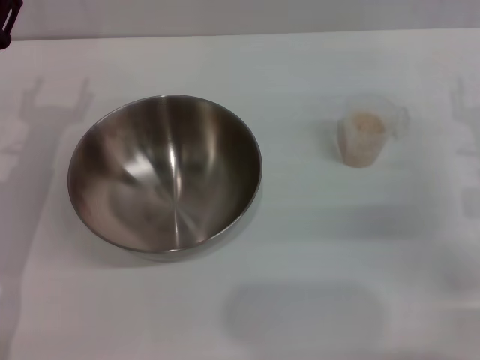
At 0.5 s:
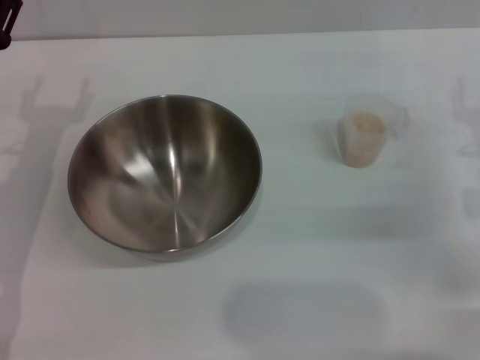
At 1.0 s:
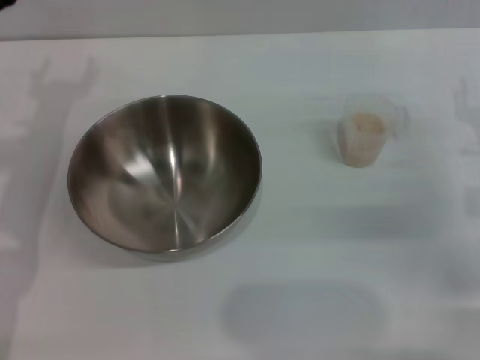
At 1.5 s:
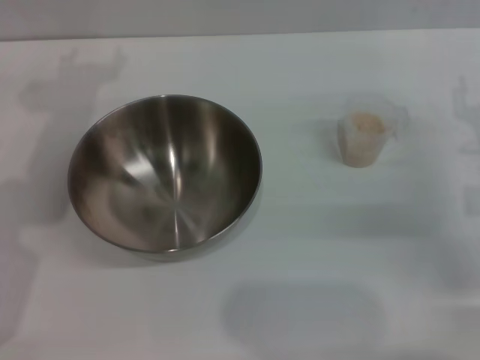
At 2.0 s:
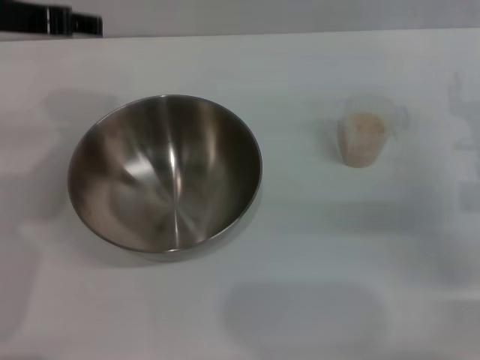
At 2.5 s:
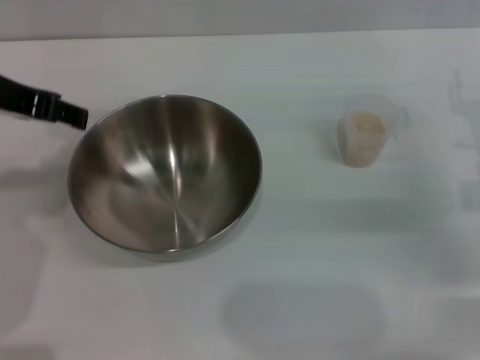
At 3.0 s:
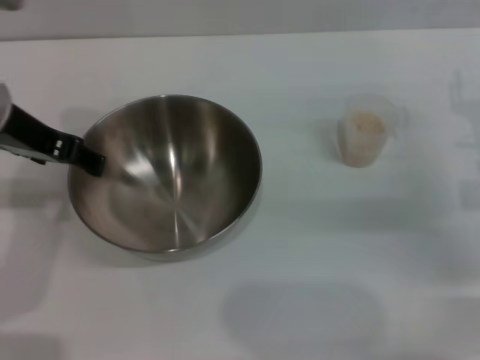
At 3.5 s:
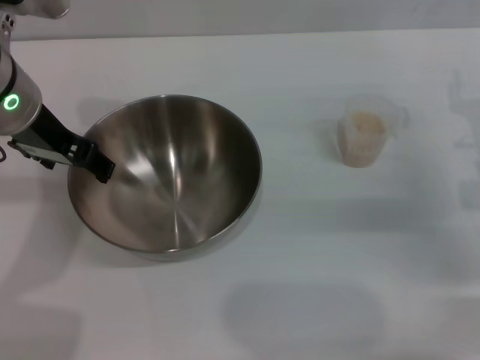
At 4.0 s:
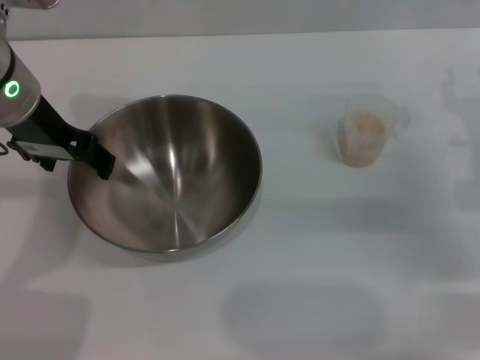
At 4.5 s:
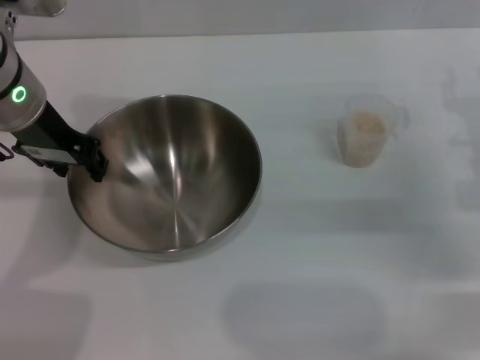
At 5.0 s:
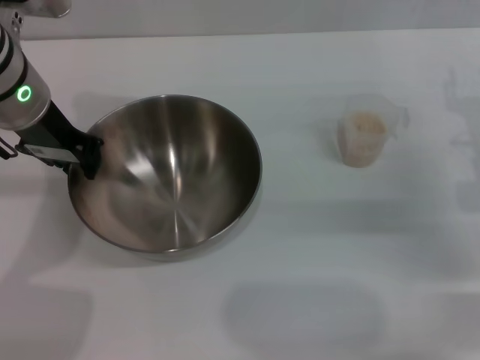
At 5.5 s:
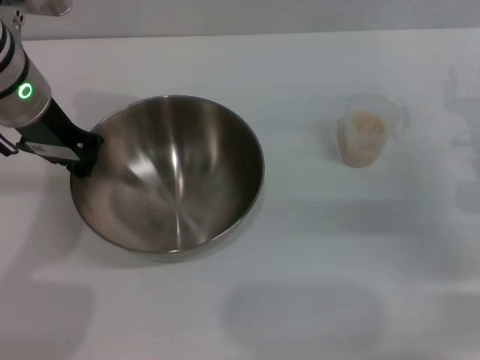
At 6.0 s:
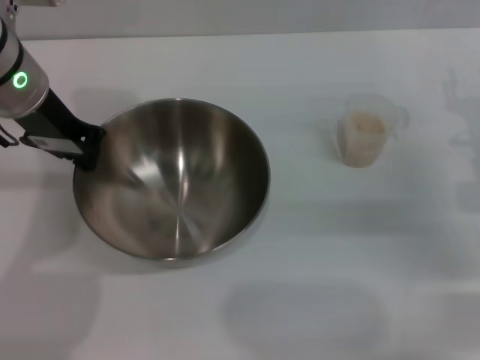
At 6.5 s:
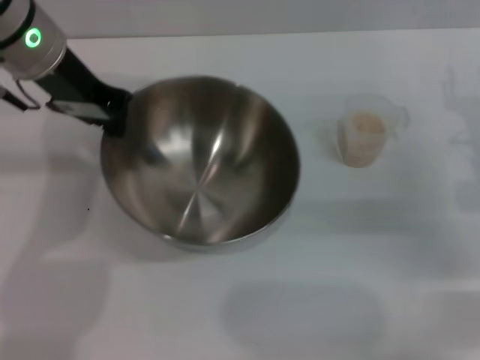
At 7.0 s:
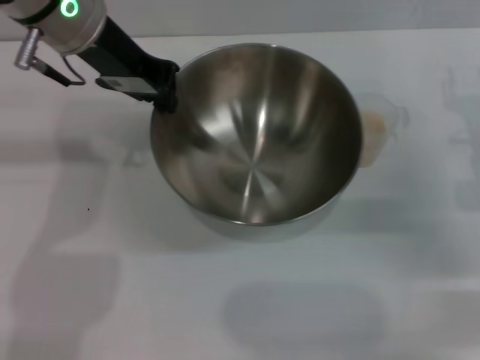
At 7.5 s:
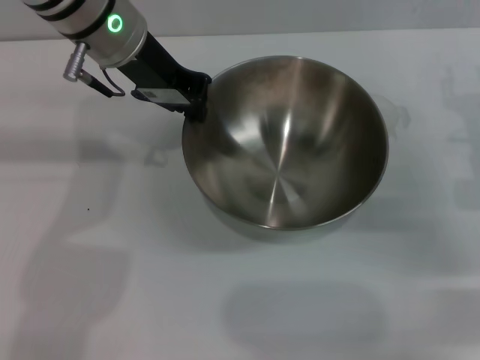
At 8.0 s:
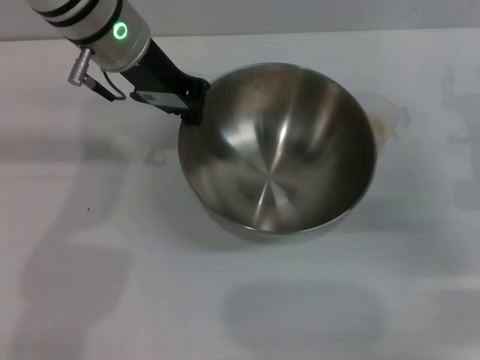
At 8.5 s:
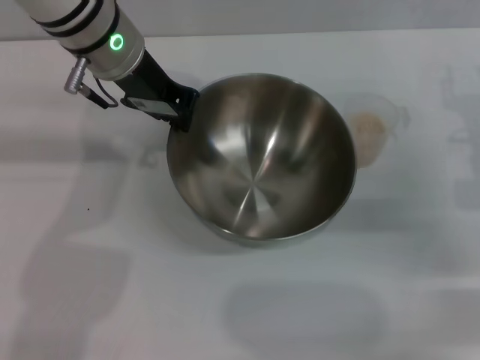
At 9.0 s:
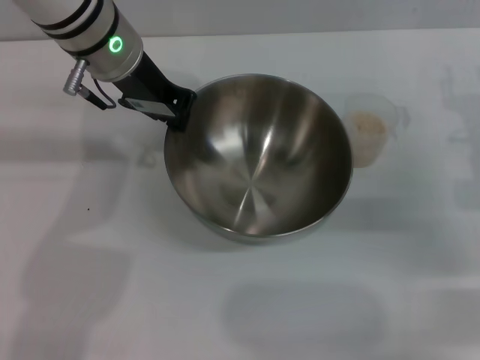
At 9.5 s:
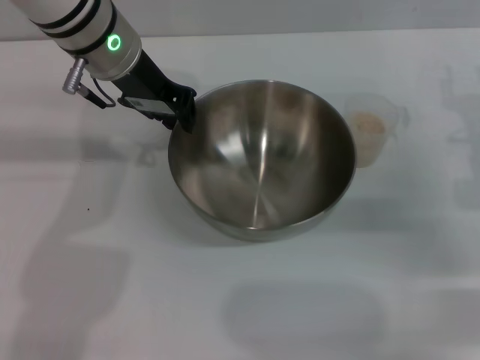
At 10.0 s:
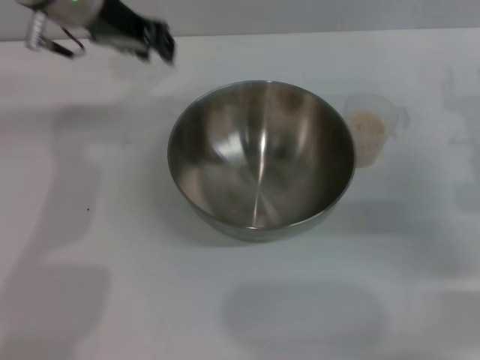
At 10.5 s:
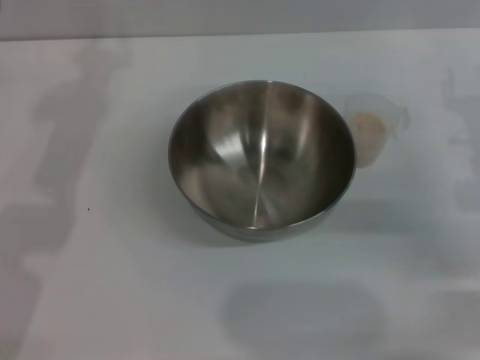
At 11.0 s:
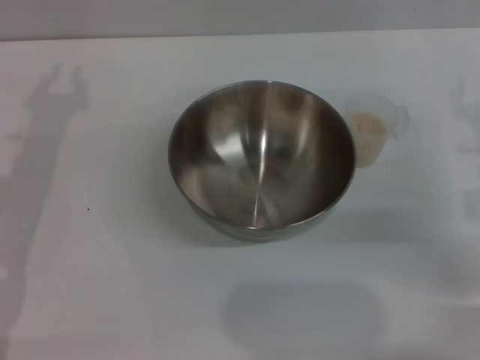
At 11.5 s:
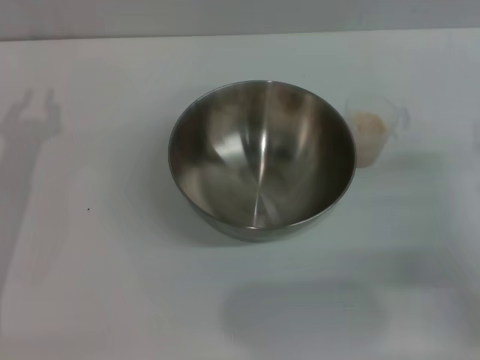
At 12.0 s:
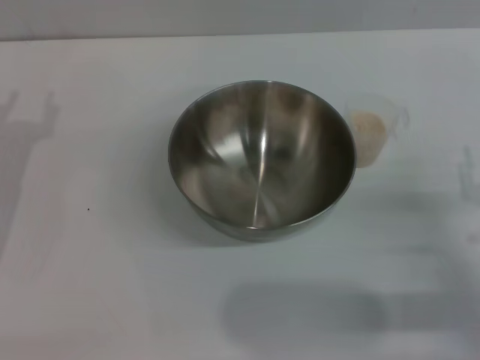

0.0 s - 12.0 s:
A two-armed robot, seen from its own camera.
Task of the whole recording: Place the bowl in the middle of the table with one hand and pour the rice from the grain cup into it with the other hand.
Step, 0.0 s - 6.0 s: Pick up the bowl with the left gripper.
Step, 6.5 s - 9.5 s: Place the bowl in the center of view with the left gripper.
0.0 s - 2.0 s: The left gripper travels upward by approximately 20 cm.
2.0 s - 4.0 s: The left gripper travels downward by about 5 cm.
4.0 s - 6.0 s: The left gripper closes its fingers.
6.0 s - 8.0 s: The left gripper is displaced to the right by some 5 cm.
8.0 s - 10.0 s: There are only small adjustments of the grippers.
10.0 s - 12.0 s: The left gripper heads downward, to the left and backward, covering approximately 25 cm; the right gripper travels backward and downward by roughly 15 cm.

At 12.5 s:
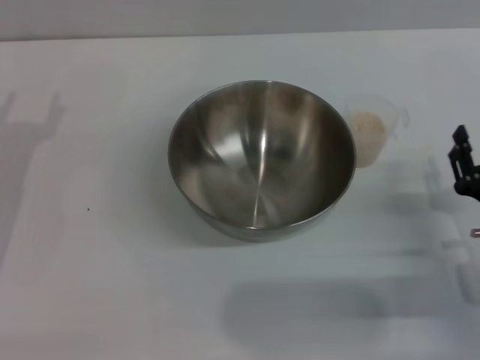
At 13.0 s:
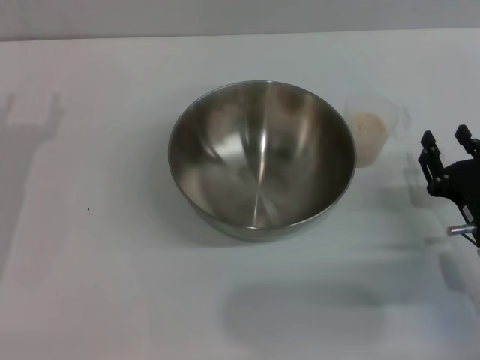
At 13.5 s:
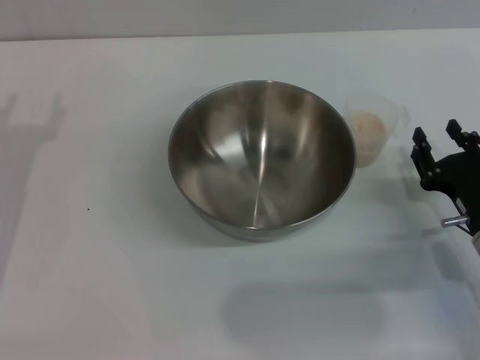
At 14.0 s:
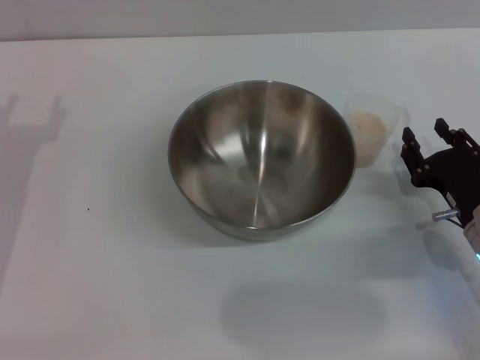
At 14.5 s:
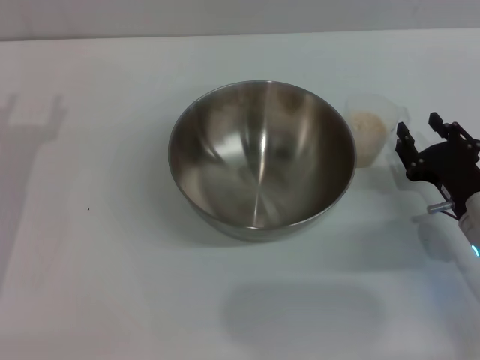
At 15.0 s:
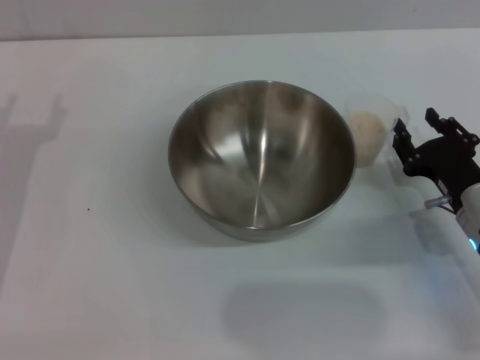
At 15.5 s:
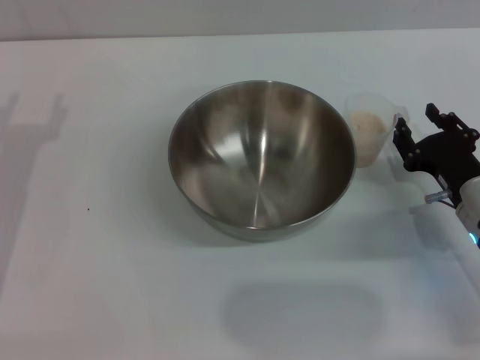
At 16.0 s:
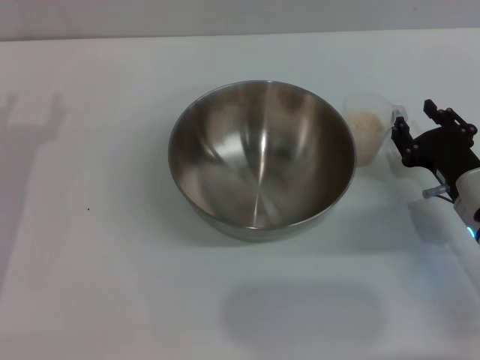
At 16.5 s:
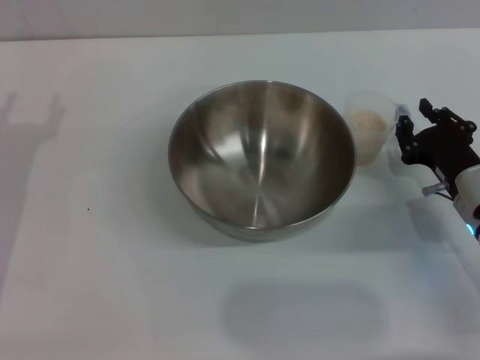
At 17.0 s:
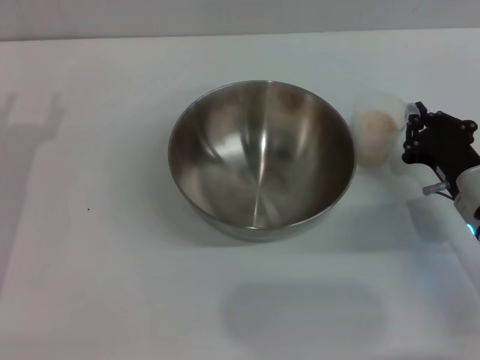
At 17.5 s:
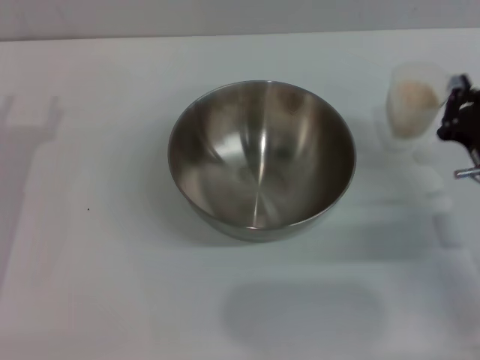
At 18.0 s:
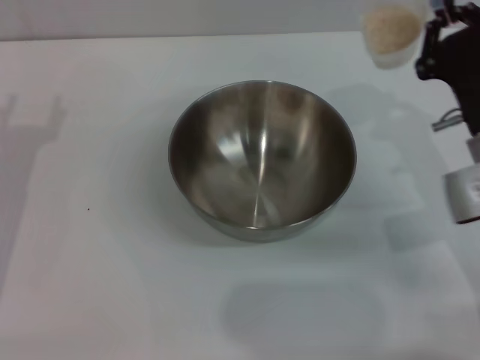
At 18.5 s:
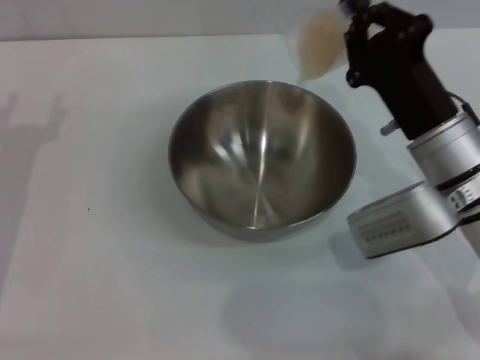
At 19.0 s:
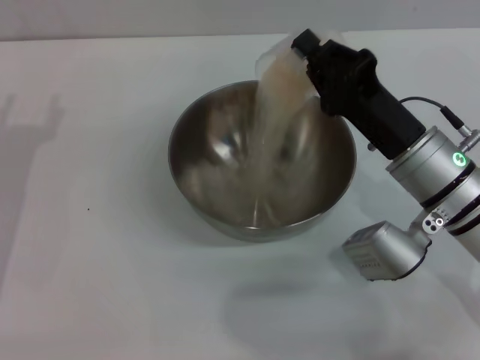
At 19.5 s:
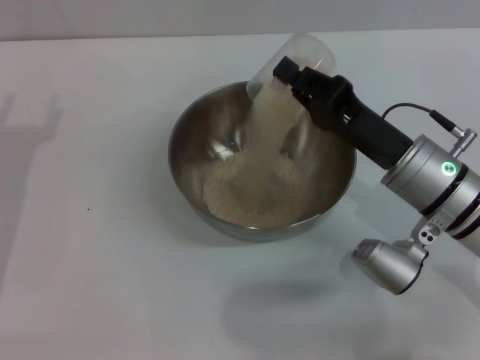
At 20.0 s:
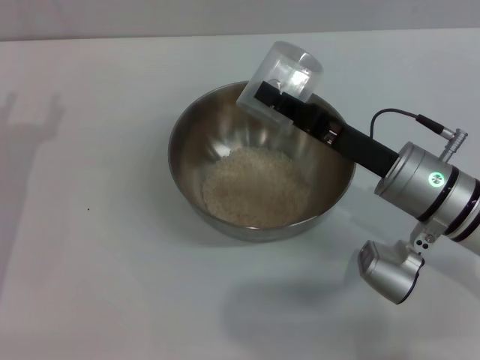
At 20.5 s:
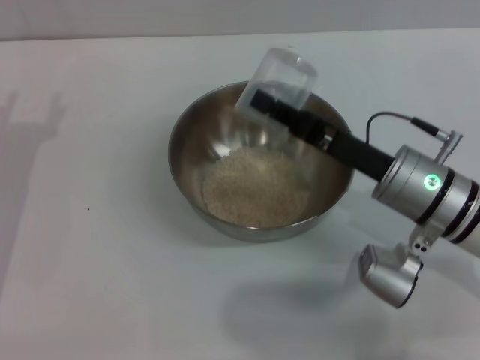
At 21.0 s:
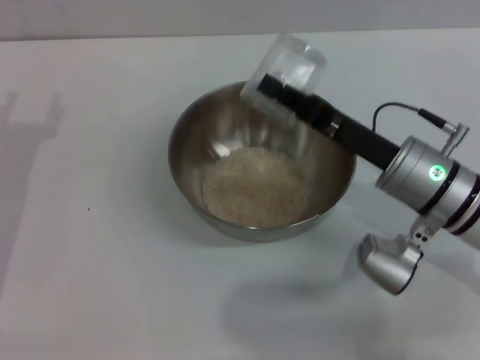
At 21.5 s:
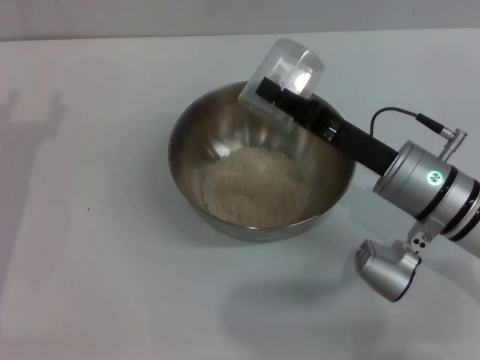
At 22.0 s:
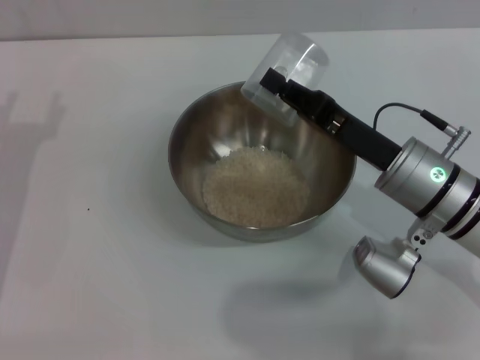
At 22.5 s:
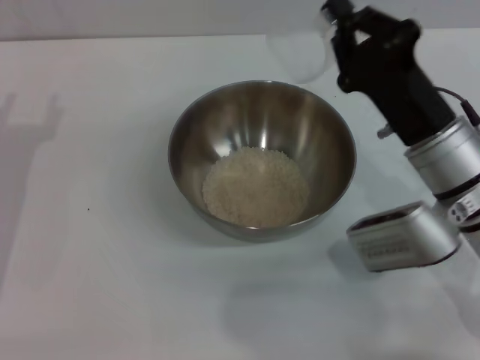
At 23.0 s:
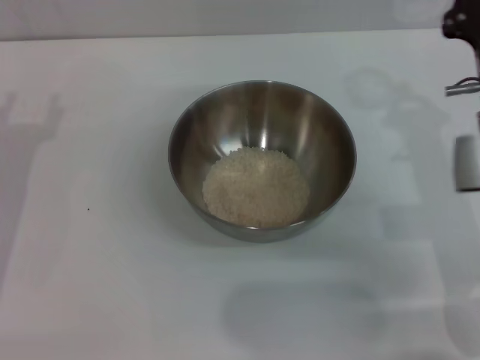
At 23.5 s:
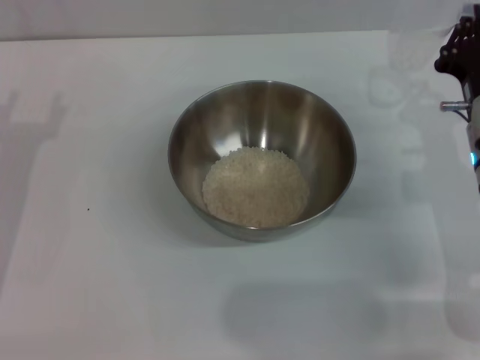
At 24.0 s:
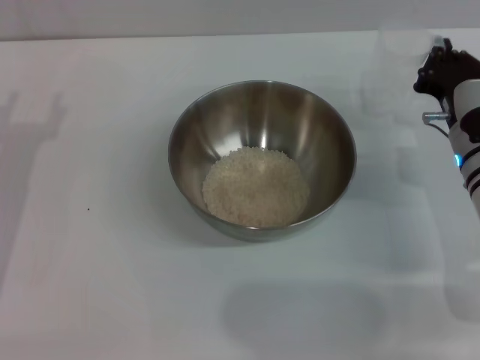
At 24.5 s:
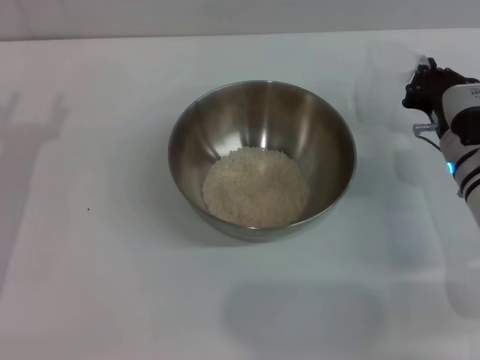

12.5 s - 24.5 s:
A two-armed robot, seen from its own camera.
Task of the whole recording: Place the bowl in the middle of the table with one hand and pour the rice from the grain cup into it with the other hand.
Step, 12.5 s - 17.5 s: Pick up the cup with rice in it with the right gripper.
Step, 18.0 s - 20.5 s: Pour the rice from the cup into the bowl with the right gripper.
12.5 s - 14.5 s: The right gripper heads forward, covering roughly 5 cm.
14.5 s - 16.5 s: There are only small adjustments of the grippers.
16.5 s - 18.5 s: The right gripper is displaced upward and to the left by approximately 10 cm, and closes its fingers.
22.5 s - 24.5 s: The right gripper moves downward, to the right and forward, some 10 cm.

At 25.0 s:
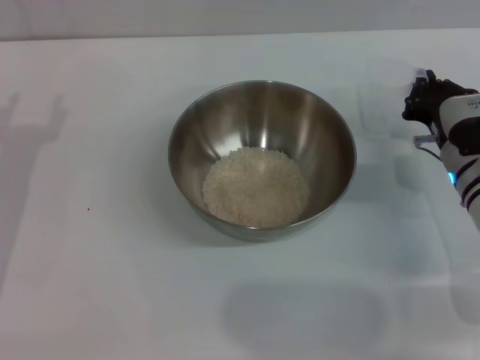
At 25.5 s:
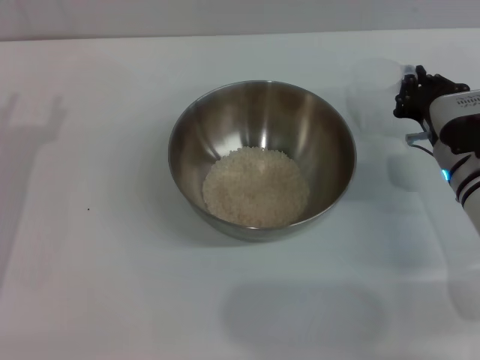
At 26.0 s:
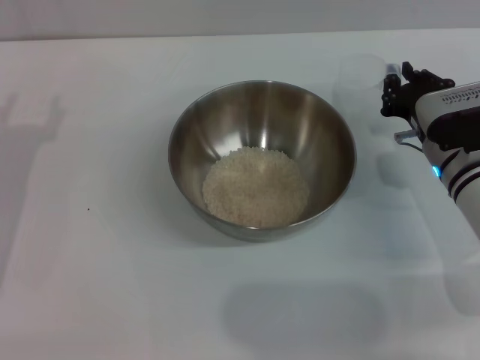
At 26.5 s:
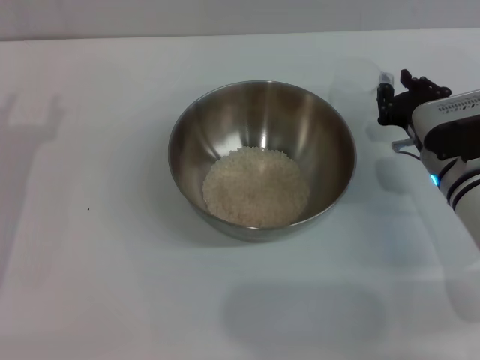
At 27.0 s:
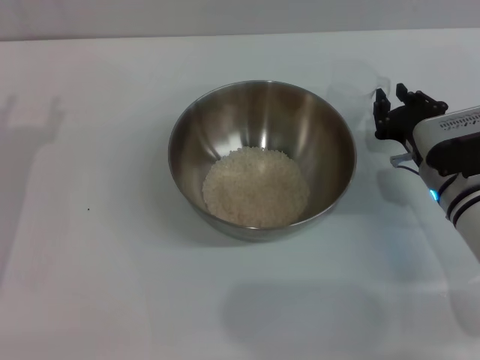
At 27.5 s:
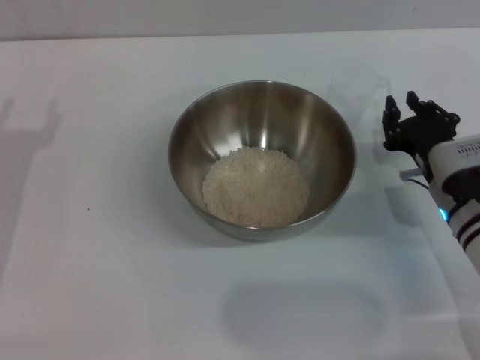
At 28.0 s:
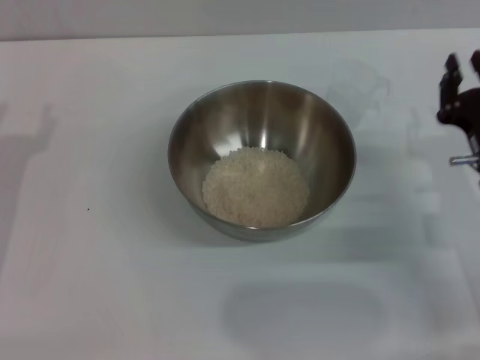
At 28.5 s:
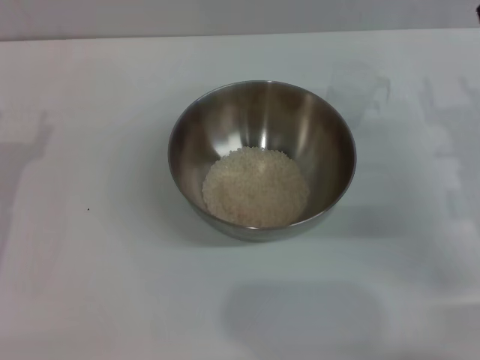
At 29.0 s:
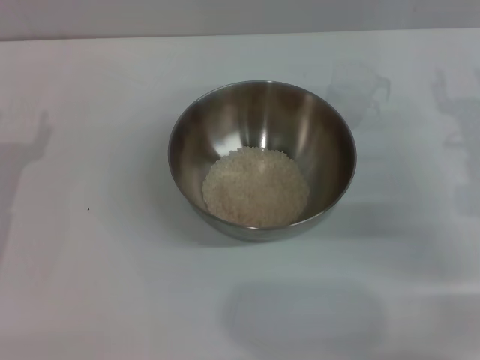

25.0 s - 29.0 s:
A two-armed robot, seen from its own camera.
Task of the whole recording: Place the bowl in the middle of the table with one hand and pour the rice from the grain cup into it with the other hand.
Step, 25.0 s - 27.0 s: Place the cup on the table with the right gripper.
25.0 s - 27.0 s: The right gripper opens up.
27.0 s - 29.0 s: The right gripper moves upward and to the right, some 10 cm, and opens up.
